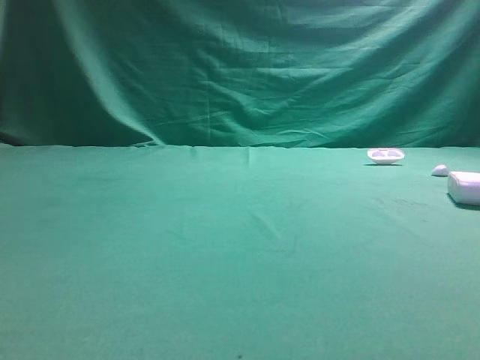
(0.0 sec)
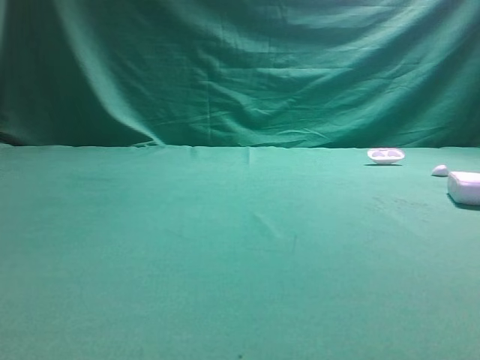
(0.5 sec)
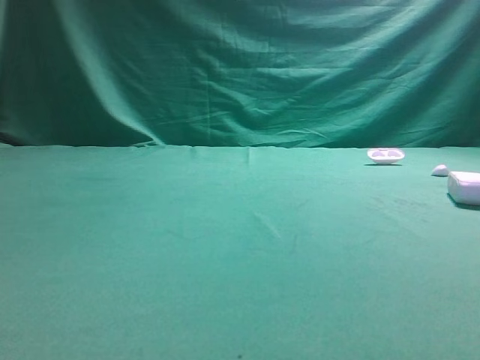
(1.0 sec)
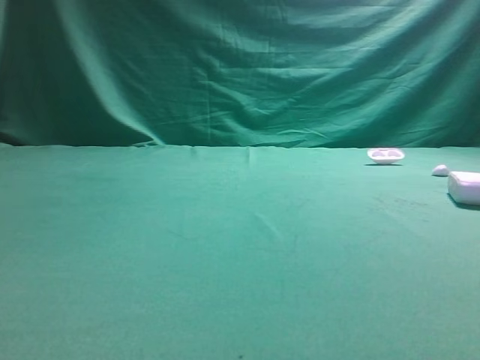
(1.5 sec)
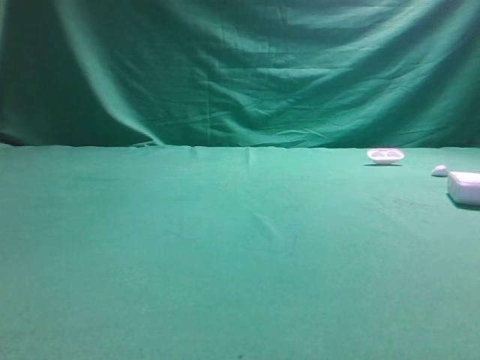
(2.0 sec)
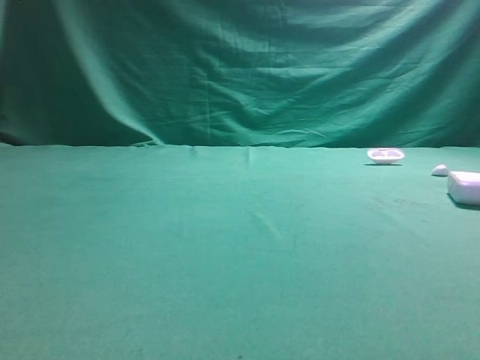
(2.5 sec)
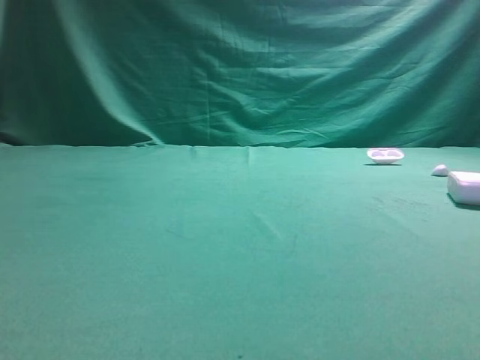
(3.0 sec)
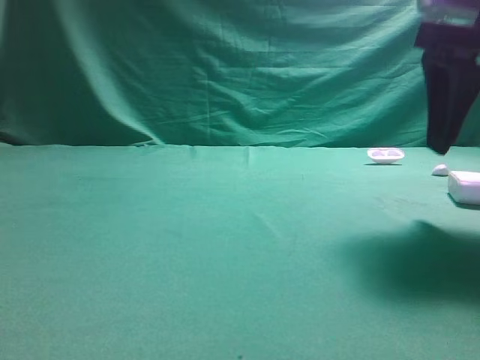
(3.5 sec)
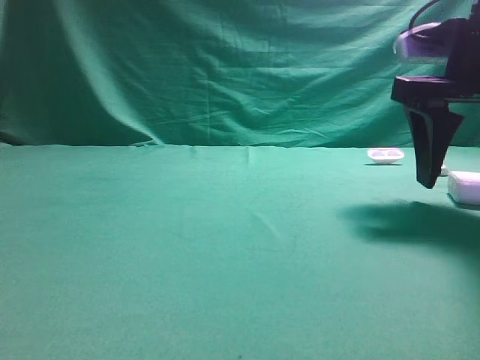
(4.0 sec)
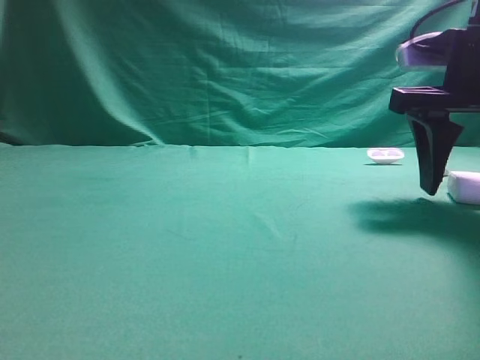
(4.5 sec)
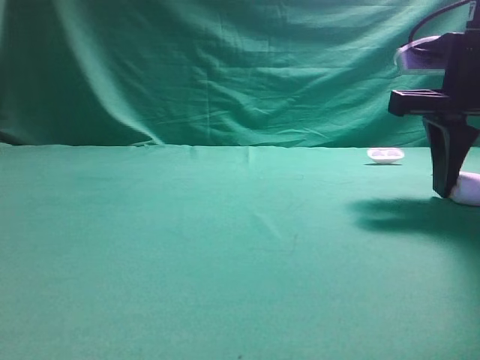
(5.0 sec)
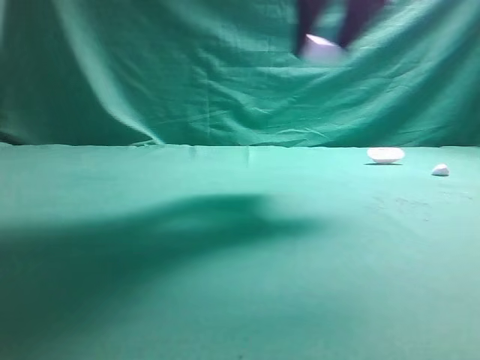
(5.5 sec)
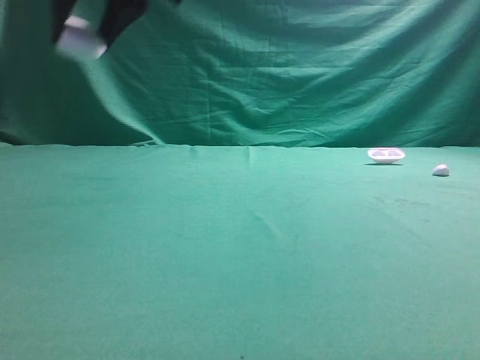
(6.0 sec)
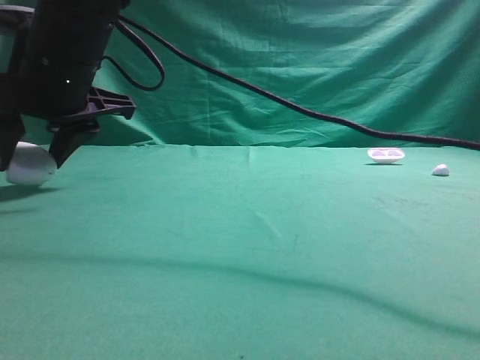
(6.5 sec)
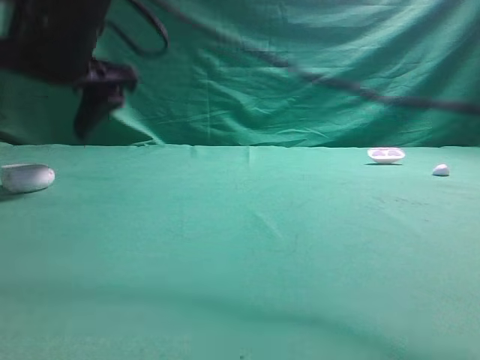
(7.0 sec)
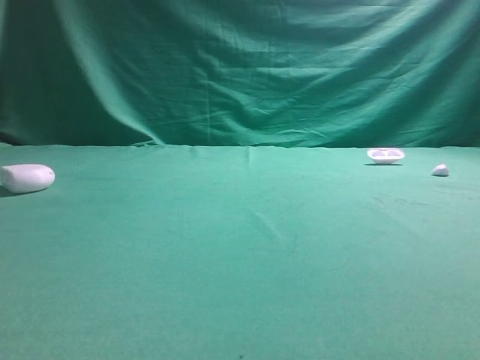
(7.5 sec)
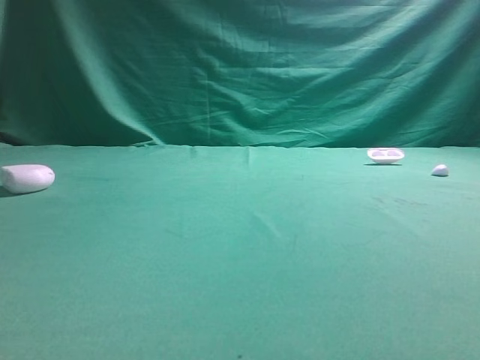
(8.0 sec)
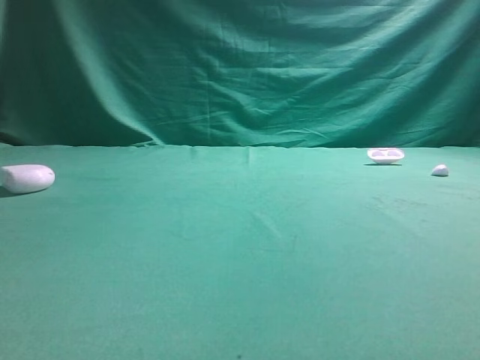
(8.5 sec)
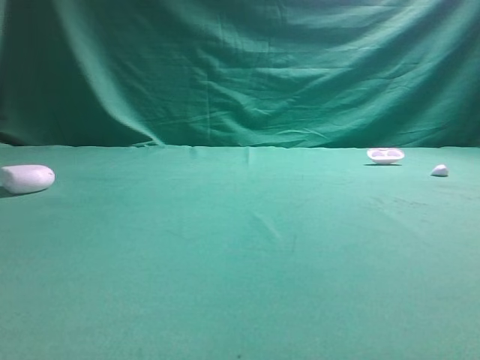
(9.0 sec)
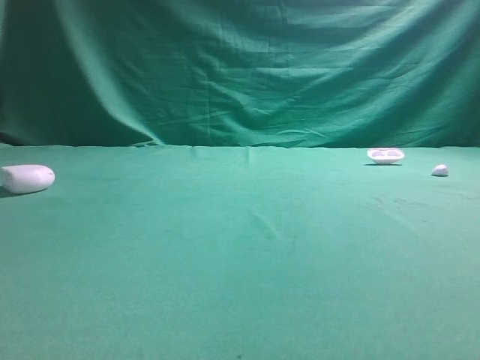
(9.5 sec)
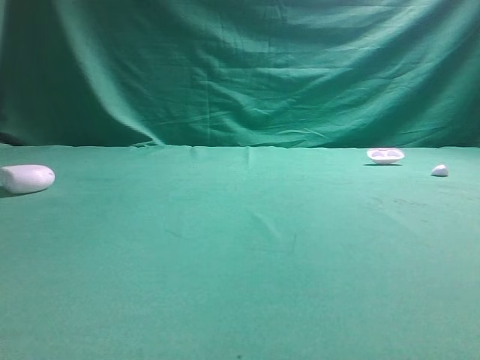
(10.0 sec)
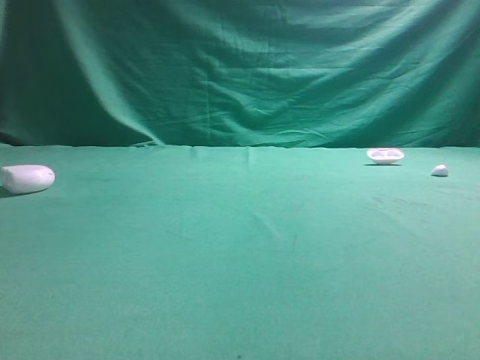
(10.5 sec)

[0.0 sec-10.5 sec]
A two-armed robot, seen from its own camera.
Step, 0.0 sec to 5.0 sec: Grasp the Bluetooth earphone case.
Step, 5.5 sec to 6.5 sec: Place bluetooth earphone case on the left side of the table.

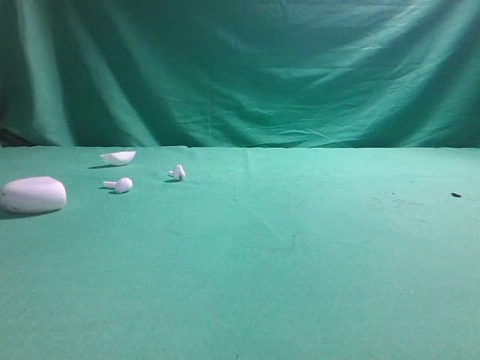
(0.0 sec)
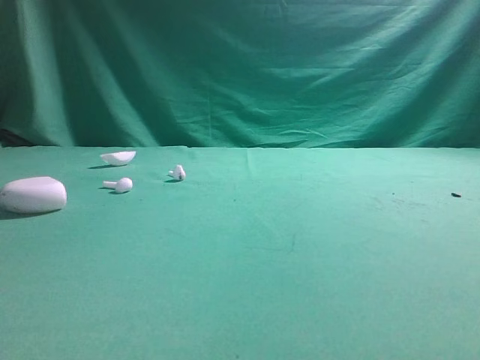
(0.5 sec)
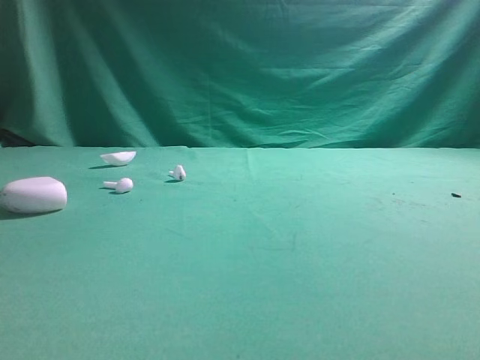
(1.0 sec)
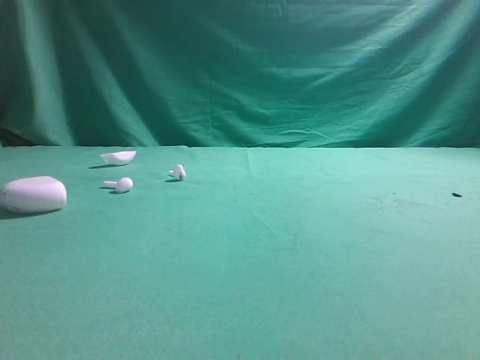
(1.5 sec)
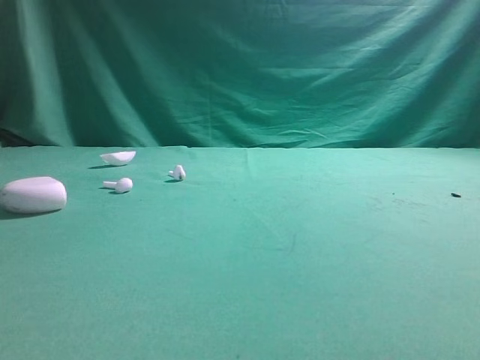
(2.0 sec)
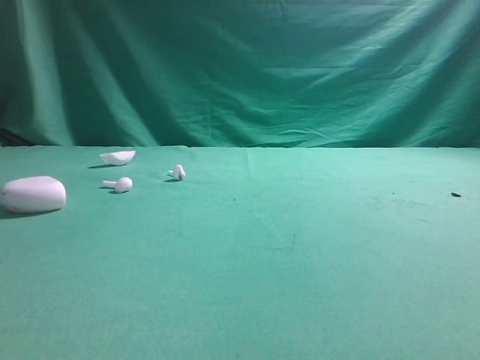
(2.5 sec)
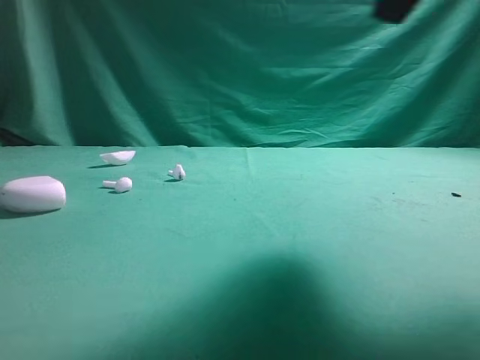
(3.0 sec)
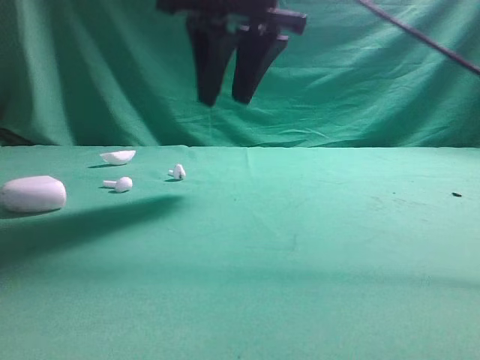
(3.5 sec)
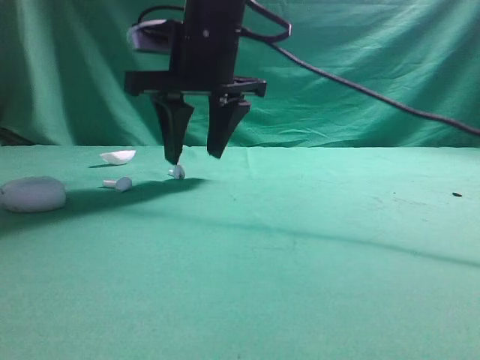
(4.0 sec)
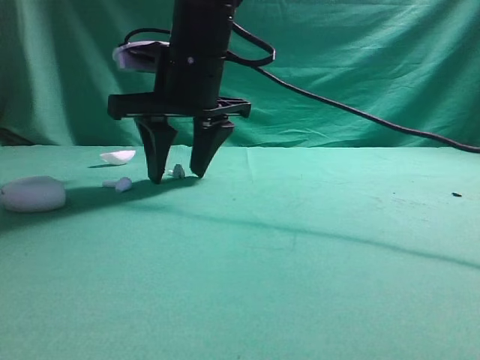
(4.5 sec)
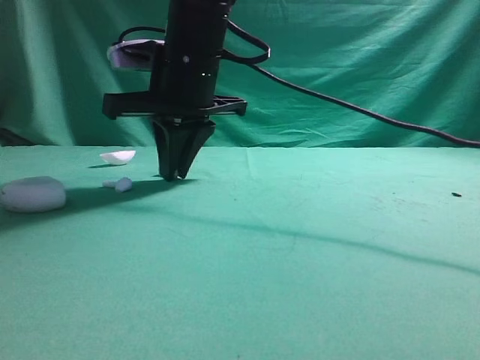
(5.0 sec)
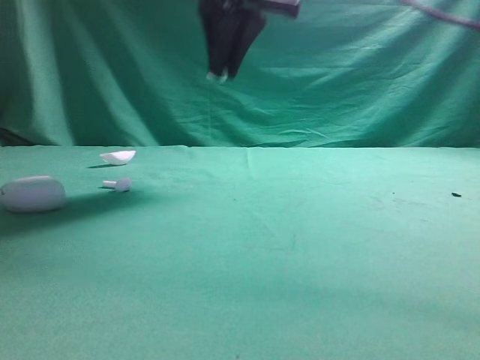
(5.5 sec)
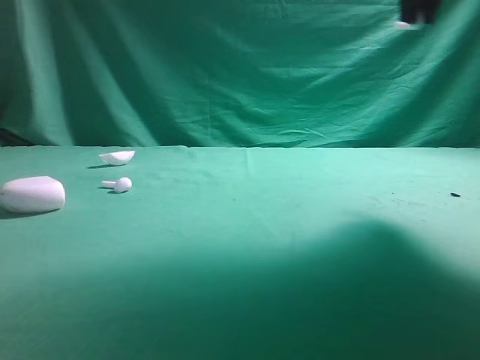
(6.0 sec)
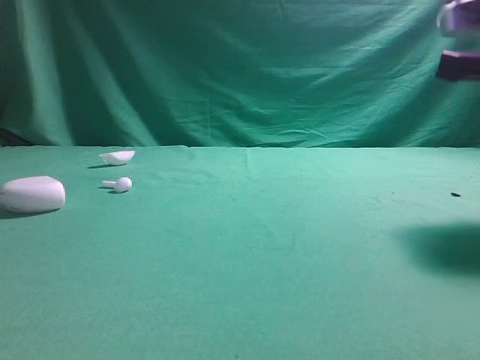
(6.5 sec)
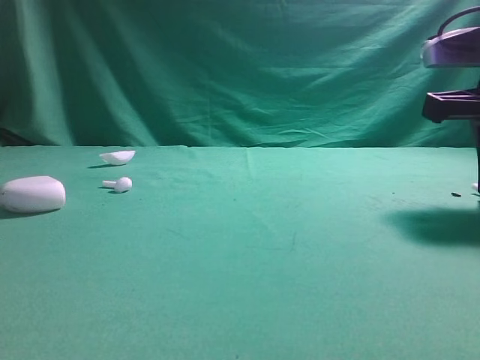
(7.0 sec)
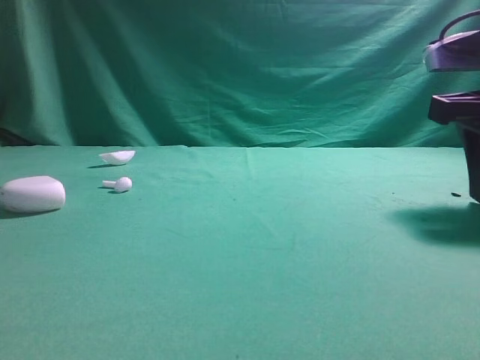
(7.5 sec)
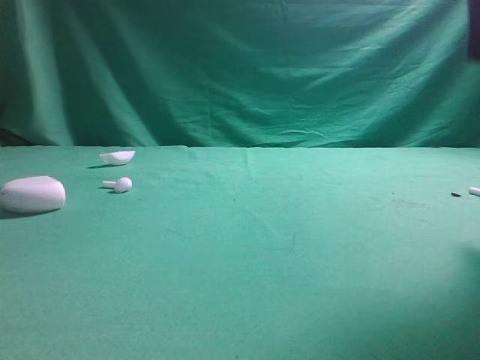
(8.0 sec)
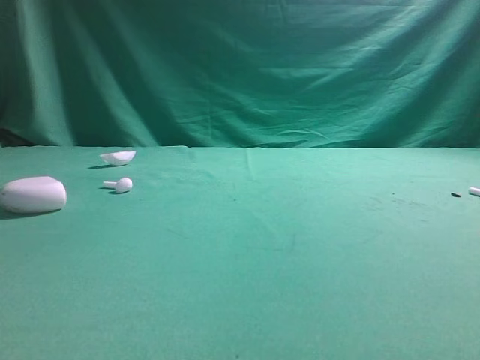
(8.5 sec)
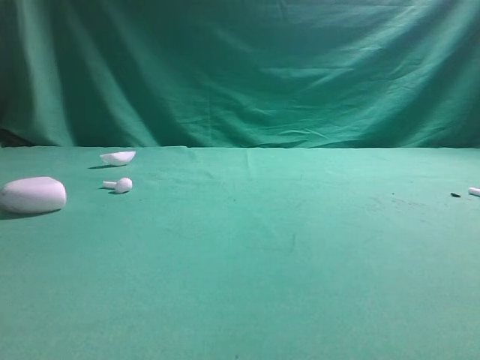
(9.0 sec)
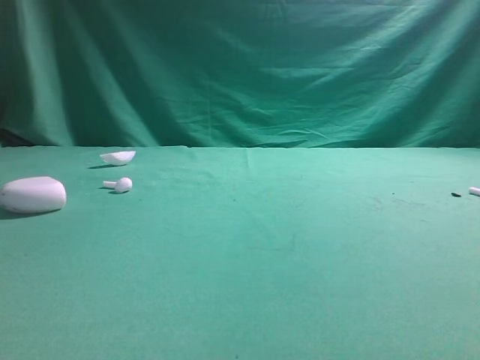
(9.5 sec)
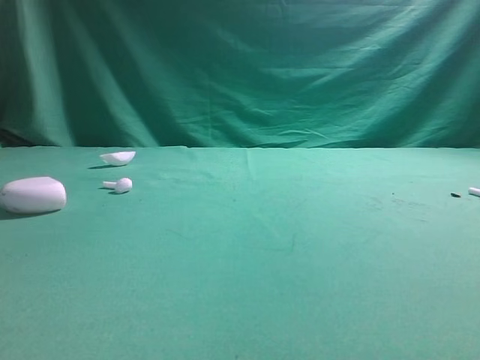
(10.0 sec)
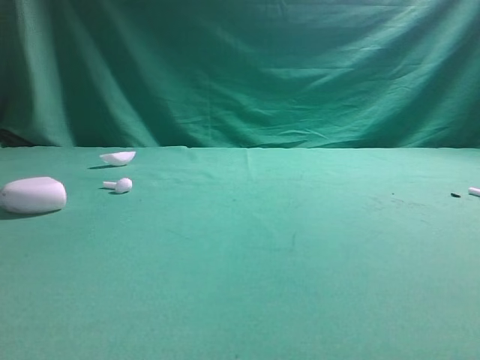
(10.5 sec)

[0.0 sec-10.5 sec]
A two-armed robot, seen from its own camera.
Step, 0.0 sec to 5.5 sec: Grasp the Bluetooth earbud.
Step, 6.0 sec to 8.0 sec: Place bluetooth earbud on the right side of the table.
